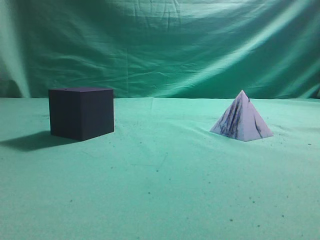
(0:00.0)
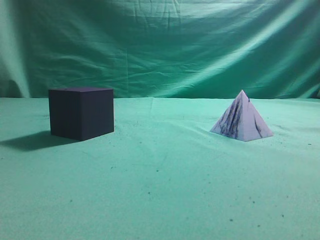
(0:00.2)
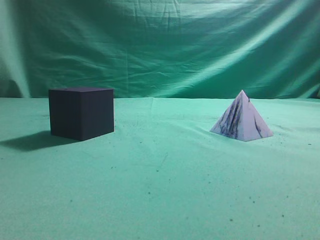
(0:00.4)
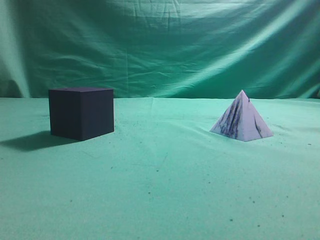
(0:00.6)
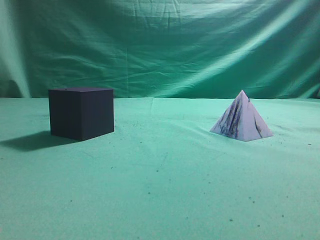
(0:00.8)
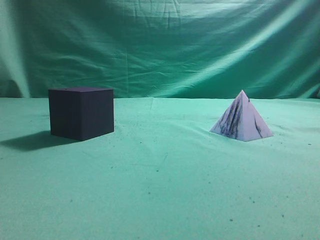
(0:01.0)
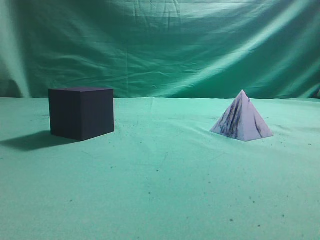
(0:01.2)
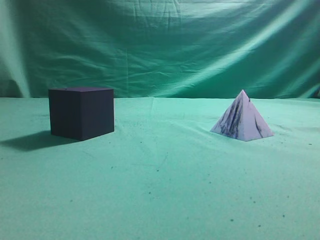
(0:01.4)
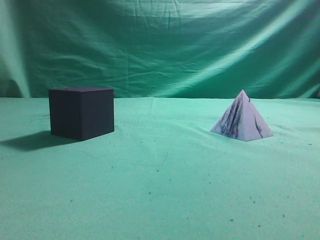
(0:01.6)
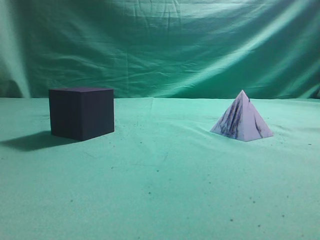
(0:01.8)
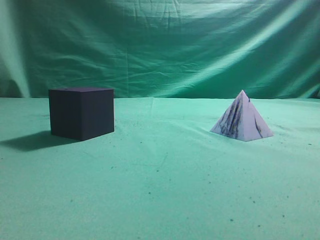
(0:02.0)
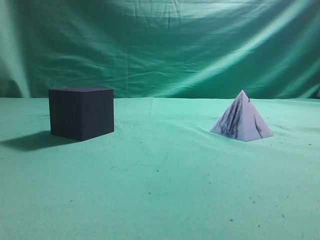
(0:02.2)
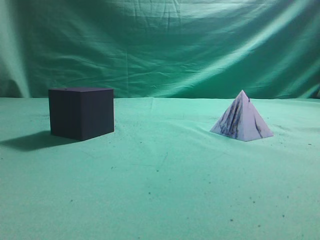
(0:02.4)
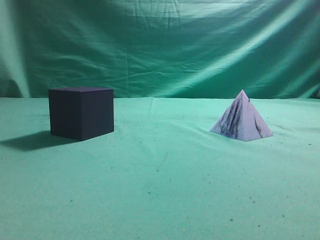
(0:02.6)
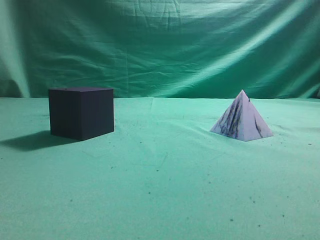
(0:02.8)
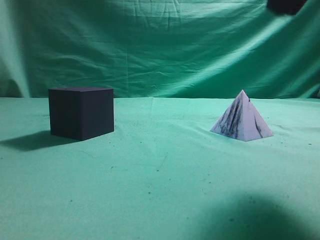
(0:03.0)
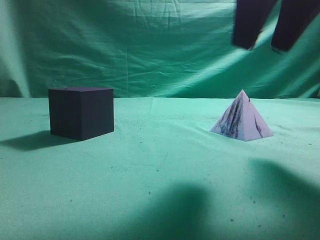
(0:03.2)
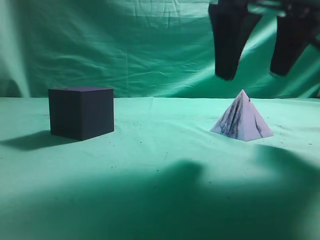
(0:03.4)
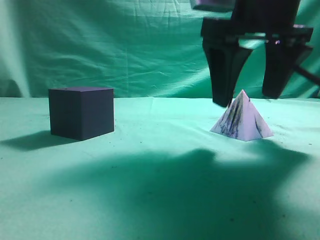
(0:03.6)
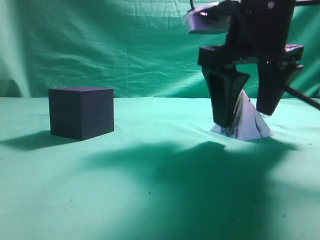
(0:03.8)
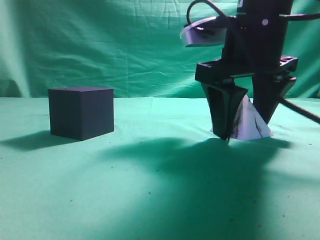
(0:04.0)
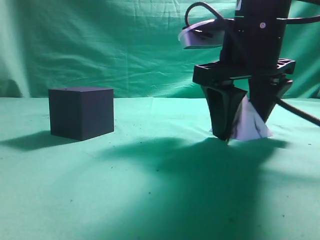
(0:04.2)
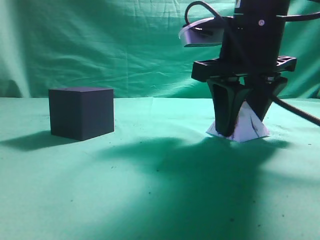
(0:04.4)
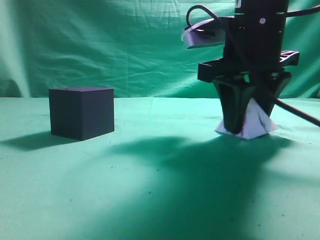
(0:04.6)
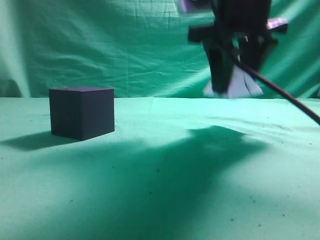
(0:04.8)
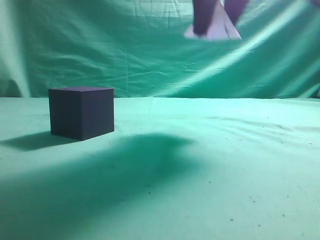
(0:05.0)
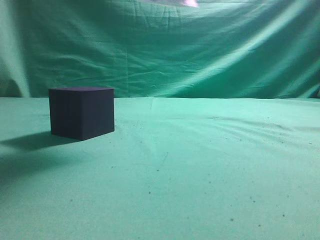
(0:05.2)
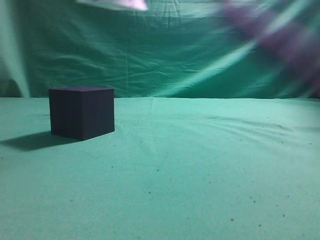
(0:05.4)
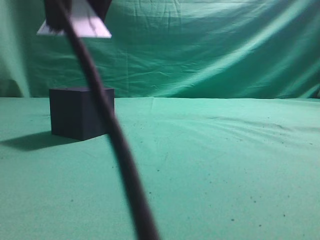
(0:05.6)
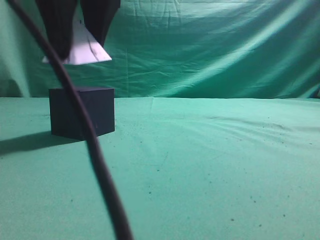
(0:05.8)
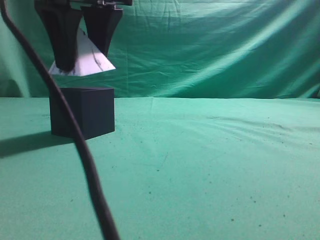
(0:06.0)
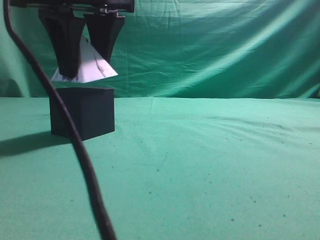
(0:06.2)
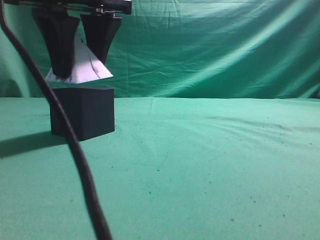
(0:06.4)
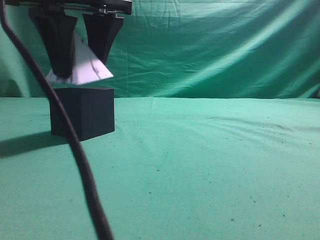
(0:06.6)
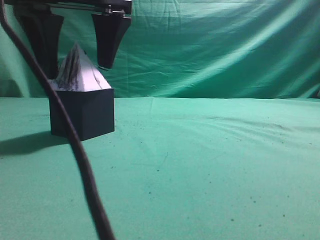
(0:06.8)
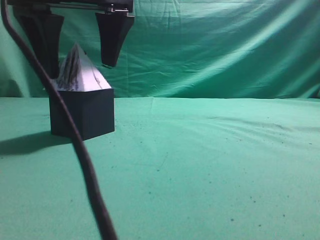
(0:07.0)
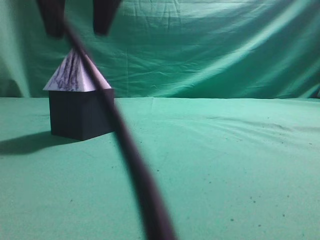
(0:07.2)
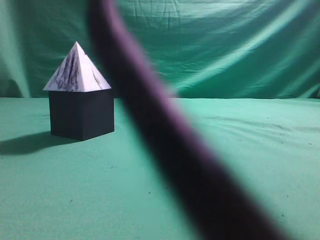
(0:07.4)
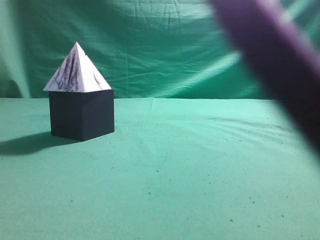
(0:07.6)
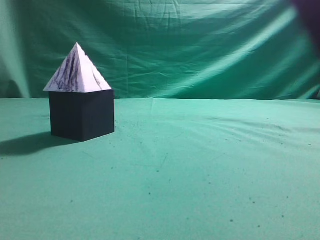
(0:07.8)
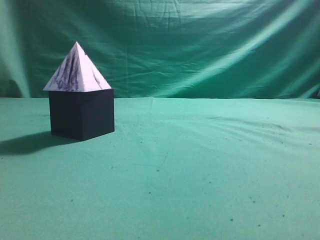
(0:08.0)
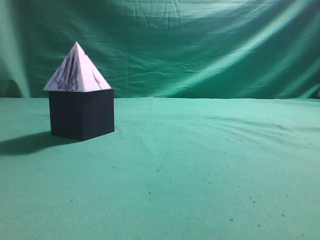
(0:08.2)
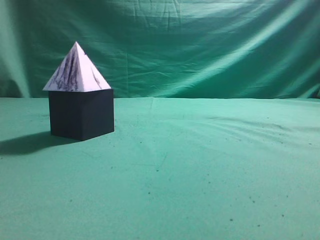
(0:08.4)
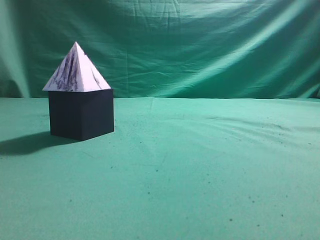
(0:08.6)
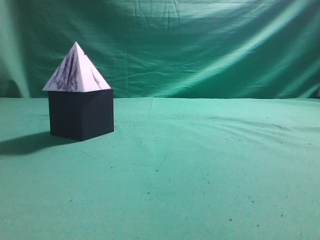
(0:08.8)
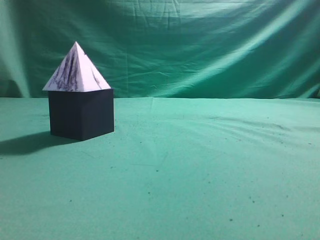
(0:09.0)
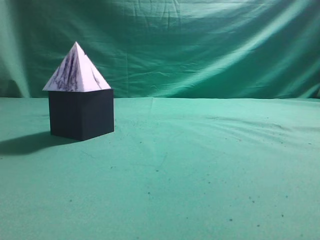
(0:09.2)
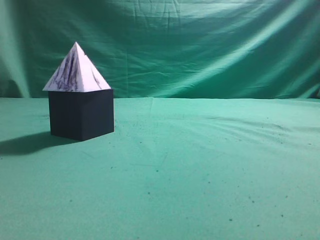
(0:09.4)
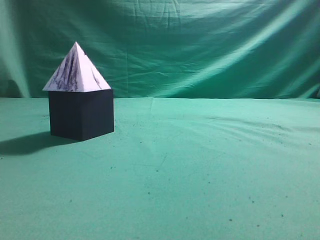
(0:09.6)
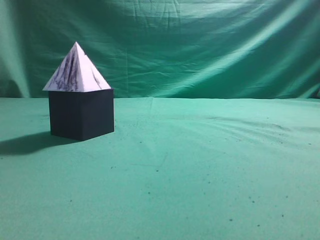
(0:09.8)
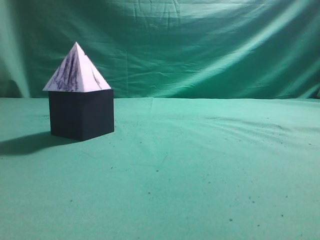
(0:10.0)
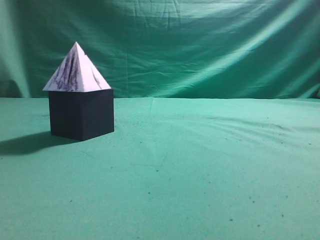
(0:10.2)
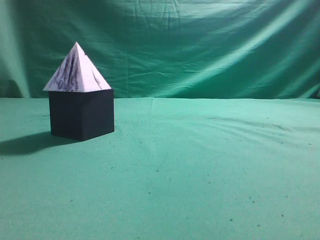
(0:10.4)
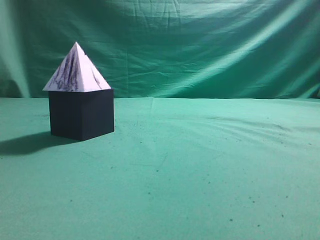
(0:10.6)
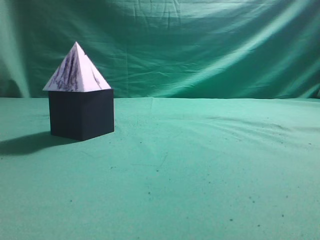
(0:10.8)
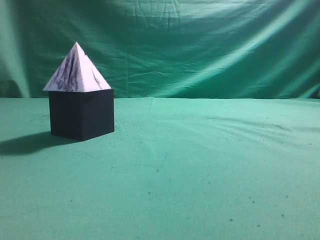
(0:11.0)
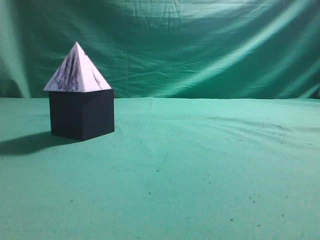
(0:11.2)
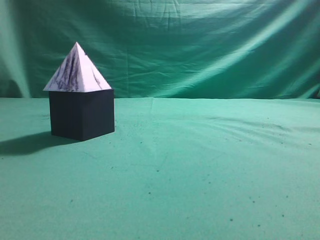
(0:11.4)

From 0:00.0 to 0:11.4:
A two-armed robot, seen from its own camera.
Task of the whole recording: pick up the square pyramid from the table and place it on the cube block.
Step, from 0:00.0 to 0:04.8: Grasp the triangular block.
Step, from 0:05.0 to 0:07.2: Place the block onto the cube-shaped block.
From 0:02.8 to 0:04.2: The right gripper travels downward, forward and to the left by roughly 20 cm, and opens.
From 0:04.2 to 0:05.6: The right gripper shifts roughly 20 cm to the left and upward.
From 0:05.6 to 0:07.2: The grippers move only a little.
From 0:07.2 to 0:08.6: The right gripper heads to the right, backward and upward, covering roughly 40 cm, and closes up.
